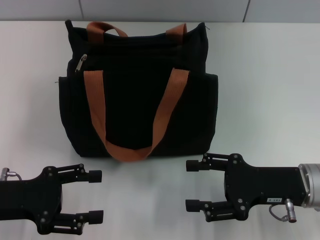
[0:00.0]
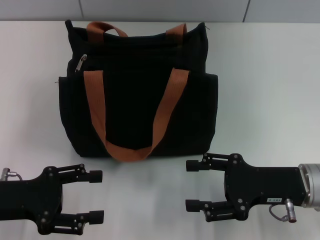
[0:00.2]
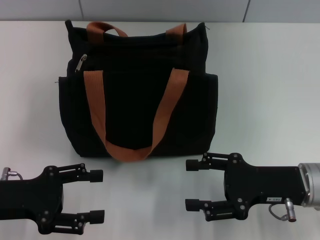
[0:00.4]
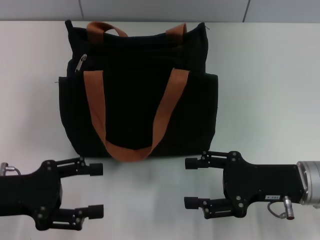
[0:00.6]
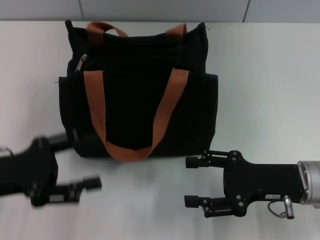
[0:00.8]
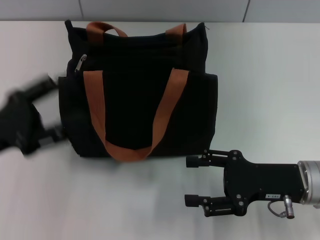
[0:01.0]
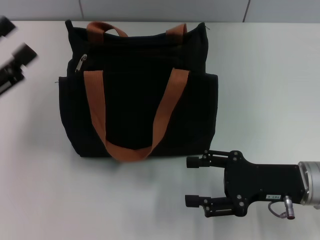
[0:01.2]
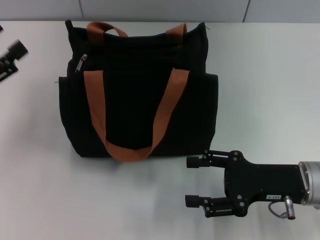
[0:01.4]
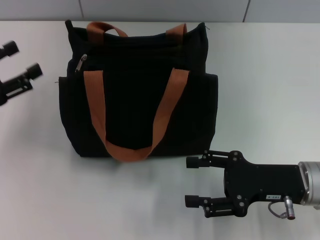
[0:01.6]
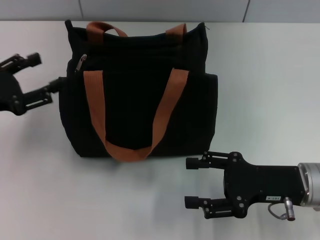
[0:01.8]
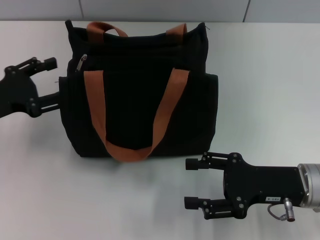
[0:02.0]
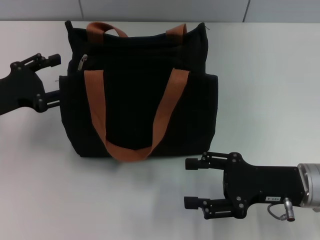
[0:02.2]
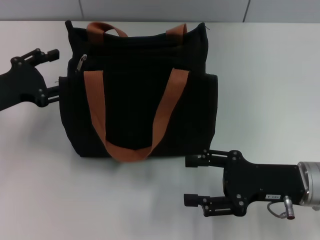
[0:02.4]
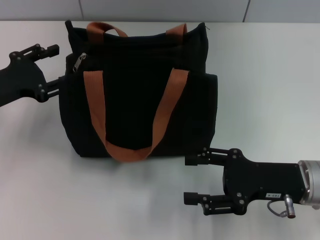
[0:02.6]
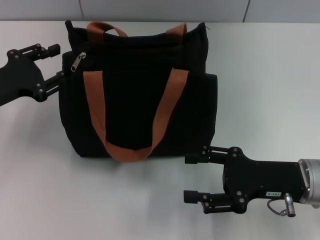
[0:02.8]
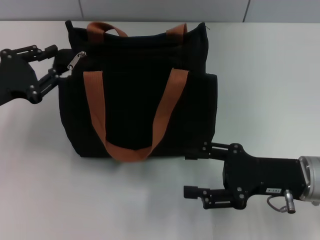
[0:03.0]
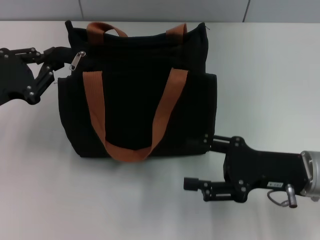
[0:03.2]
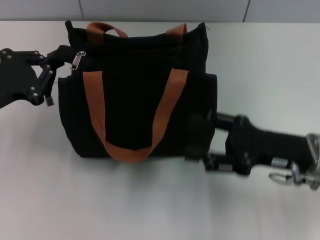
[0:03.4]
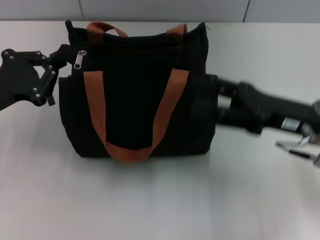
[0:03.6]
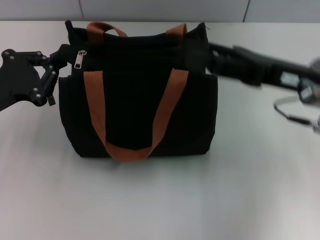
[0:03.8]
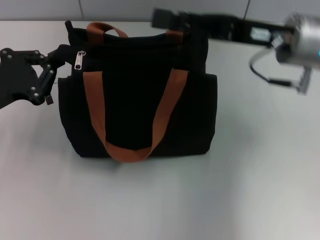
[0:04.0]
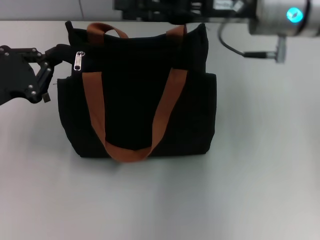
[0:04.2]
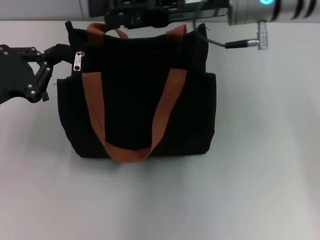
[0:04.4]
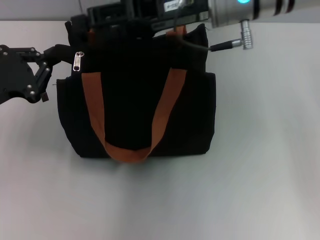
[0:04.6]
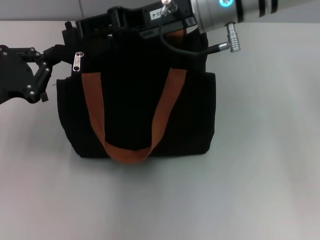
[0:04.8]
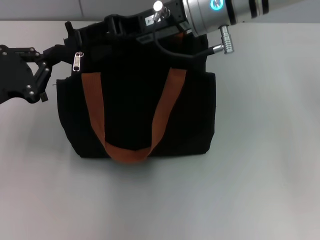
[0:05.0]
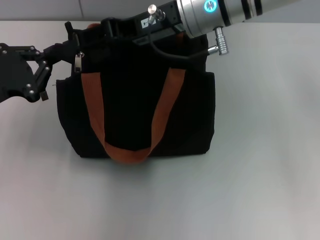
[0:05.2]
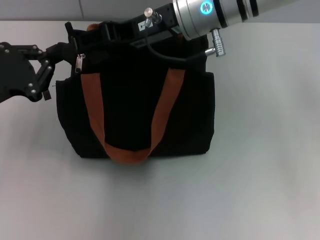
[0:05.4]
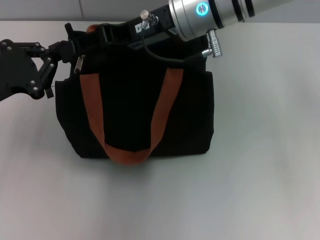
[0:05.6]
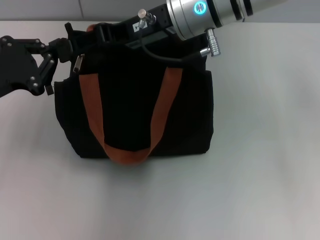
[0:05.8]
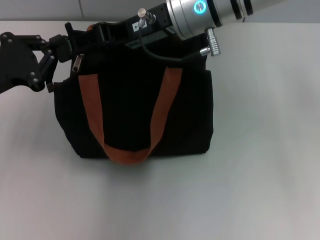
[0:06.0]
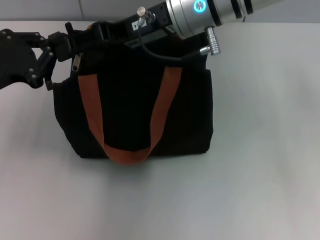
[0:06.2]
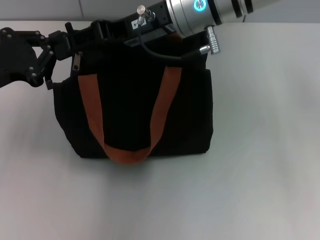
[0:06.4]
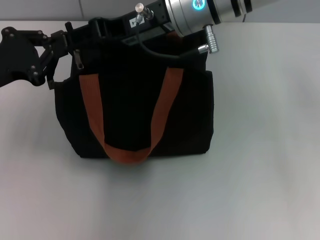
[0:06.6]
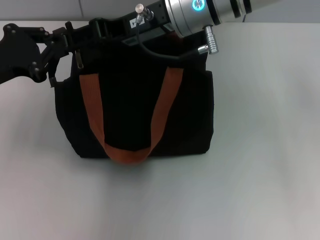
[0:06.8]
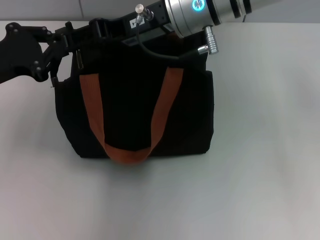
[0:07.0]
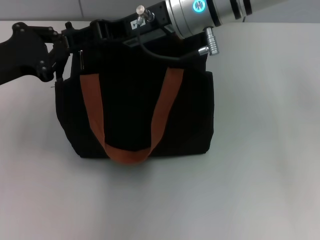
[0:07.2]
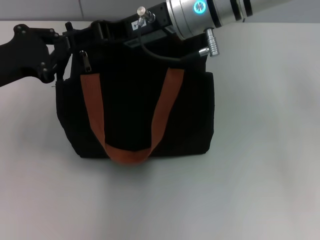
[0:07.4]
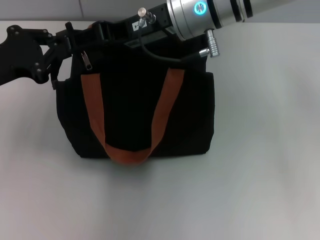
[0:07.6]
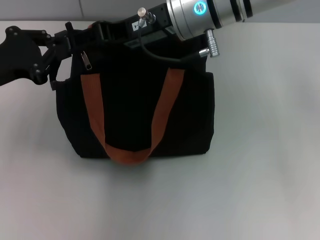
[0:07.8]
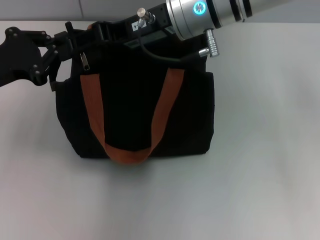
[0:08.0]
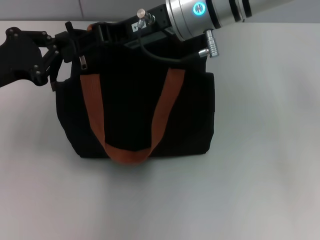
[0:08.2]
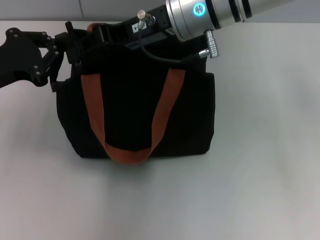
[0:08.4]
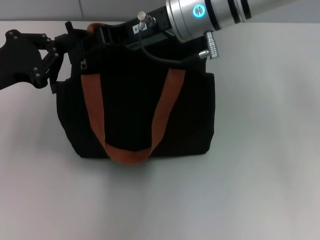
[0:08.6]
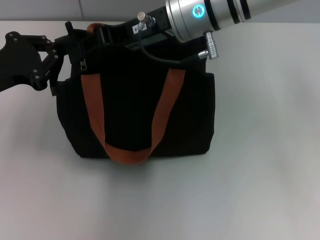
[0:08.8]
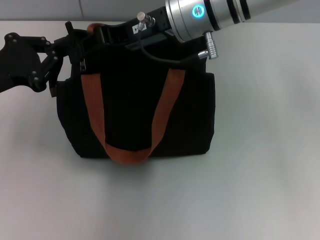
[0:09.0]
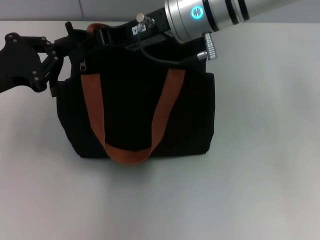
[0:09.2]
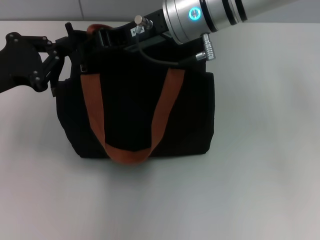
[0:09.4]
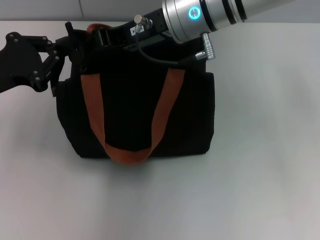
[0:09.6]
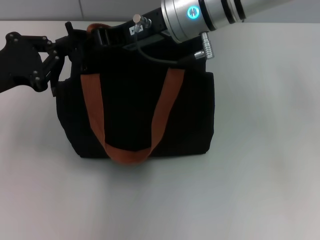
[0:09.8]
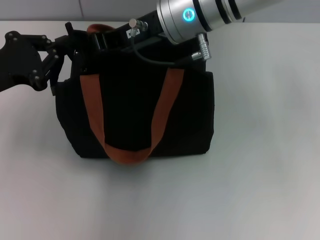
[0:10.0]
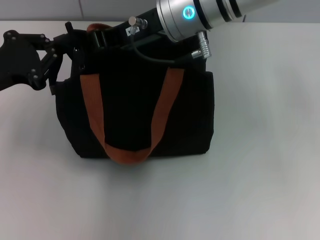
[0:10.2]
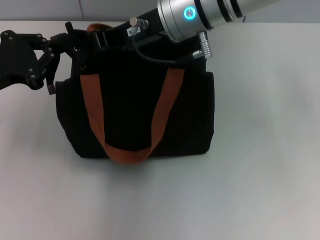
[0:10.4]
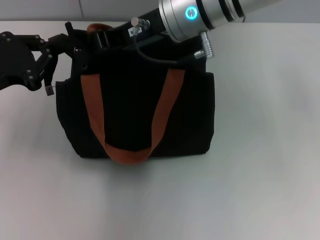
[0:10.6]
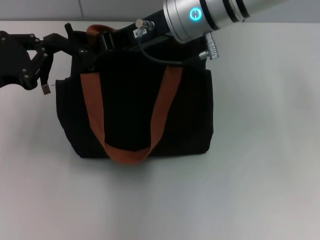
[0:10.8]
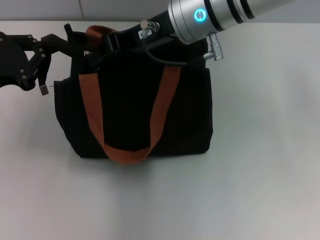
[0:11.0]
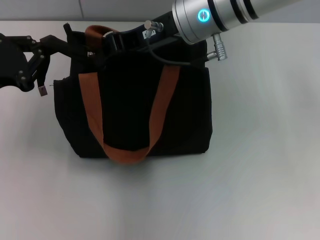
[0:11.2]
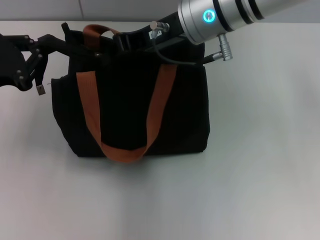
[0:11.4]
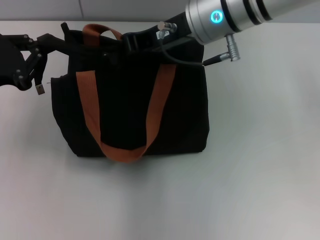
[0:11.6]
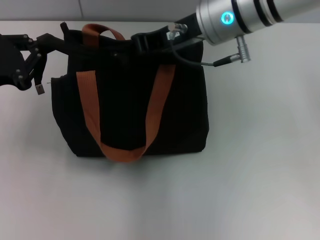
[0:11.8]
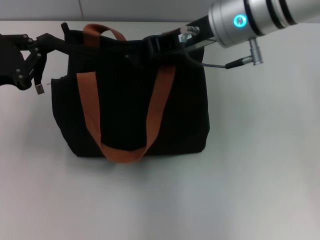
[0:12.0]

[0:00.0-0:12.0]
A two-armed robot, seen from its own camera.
0:00.0 to 0:01.6: The left gripper travels to the left and forward by some 10 cm.
0:03.0 to 0:04.4: The right gripper goes approximately 25 cm upward, forward and to the left. Meanwhile the left gripper closes up.
0:04.4 to 0:06.0: The right gripper is displaced to the left by some 5 cm.
0:06.0 to 0:07.6: The grippers stay close to where they were, moving slightly.
0:07.6 to 0:09.0: The right gripper closes its fingers.
0:09.0 to 0:10.4: The grippers stay close to where they were, moving slightly.
0:10.4 to 0:12.0: The right gripper is displaced to the right by roughly 5 cm.

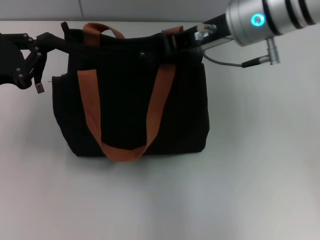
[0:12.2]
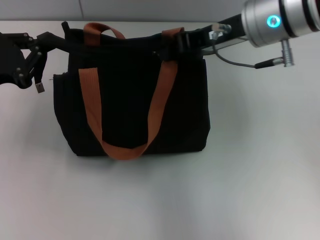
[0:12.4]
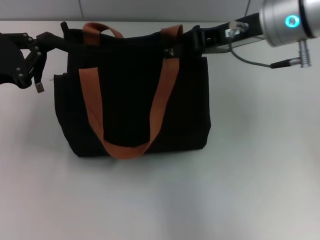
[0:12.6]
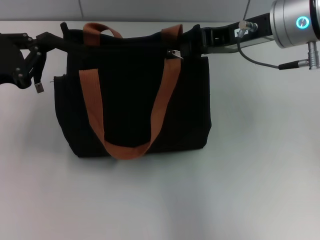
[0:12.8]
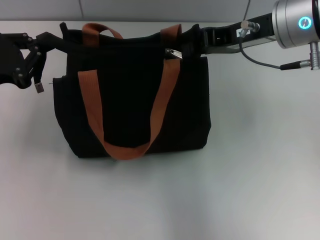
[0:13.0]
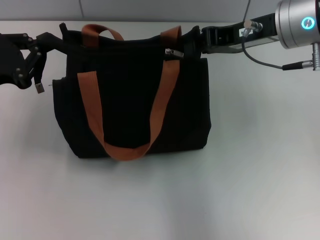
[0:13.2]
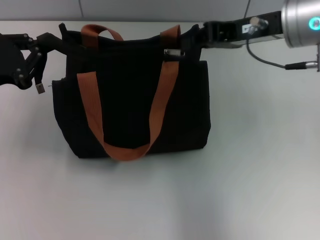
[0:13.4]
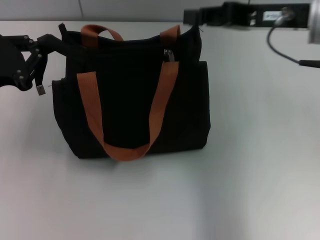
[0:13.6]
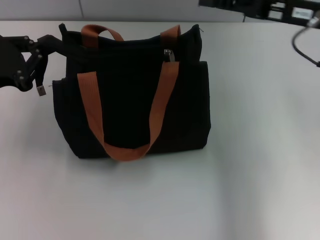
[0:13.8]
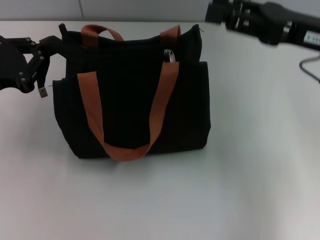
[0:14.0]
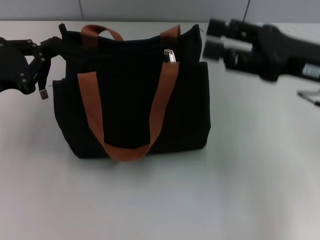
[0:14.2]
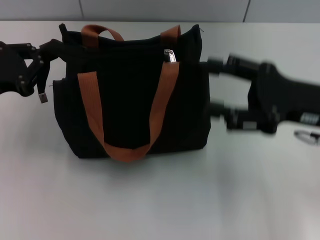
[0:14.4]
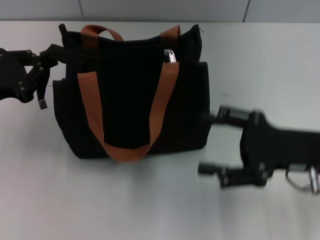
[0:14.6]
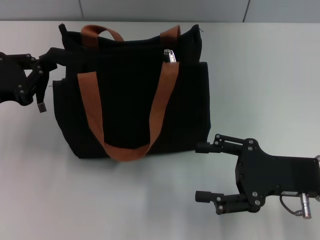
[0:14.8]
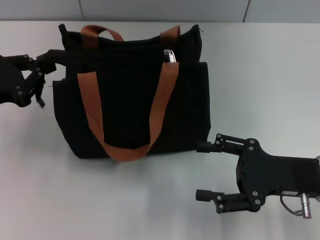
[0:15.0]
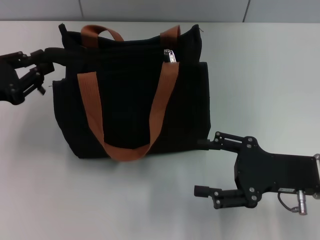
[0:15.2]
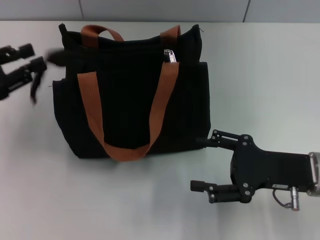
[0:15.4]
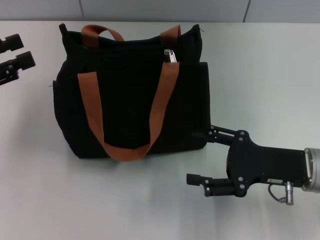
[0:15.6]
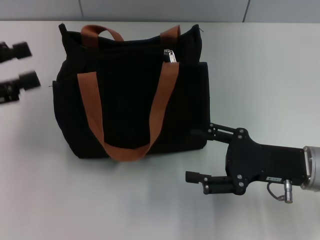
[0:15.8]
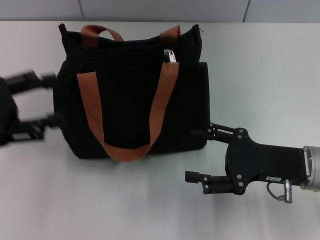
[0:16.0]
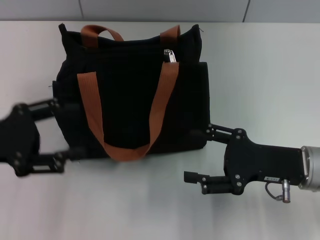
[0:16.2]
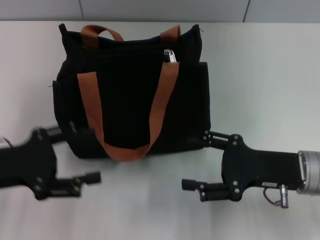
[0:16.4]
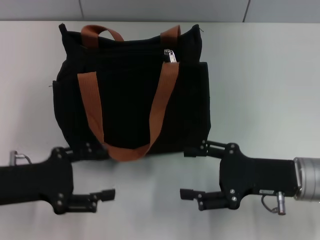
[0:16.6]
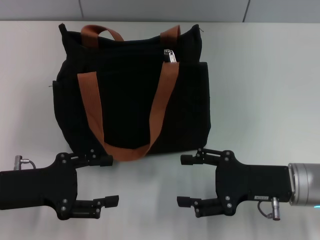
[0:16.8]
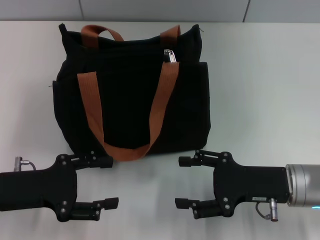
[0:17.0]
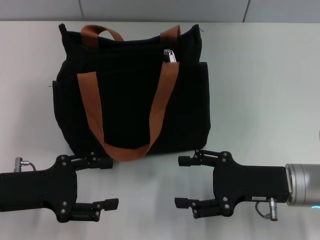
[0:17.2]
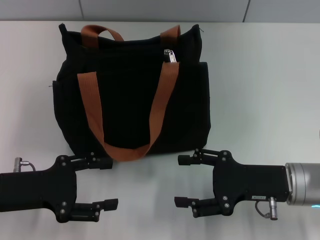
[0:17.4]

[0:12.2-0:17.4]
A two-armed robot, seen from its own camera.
Step, 0:13.6 to 0:15.4: Grab the zipper with your left hand.
0:12.2 to 0:14.0: The right gripper goes some 15 cm to the right and backward, and opens.
0:14.0 to 0:15.6: The left gripper moves approximately 5 cm, and opens its fingers. The right gripper moves downward and backward, roughly 15 cm, and opens.
0:15.6 to 0:17.4: The left gripper goes some 15 cm downward, to the right and backward, and opens.

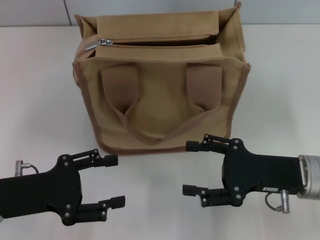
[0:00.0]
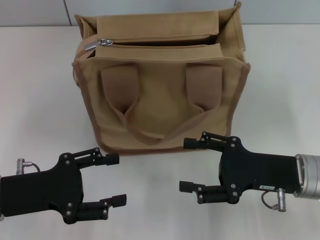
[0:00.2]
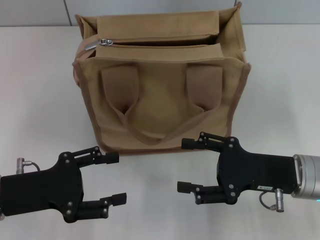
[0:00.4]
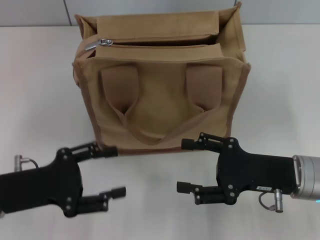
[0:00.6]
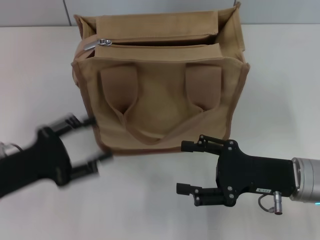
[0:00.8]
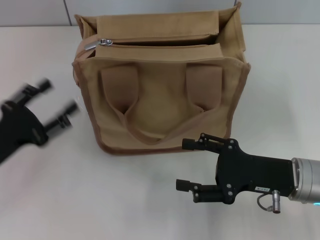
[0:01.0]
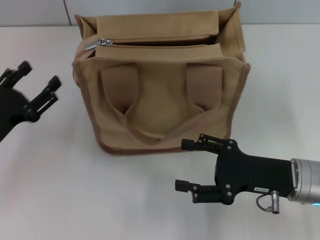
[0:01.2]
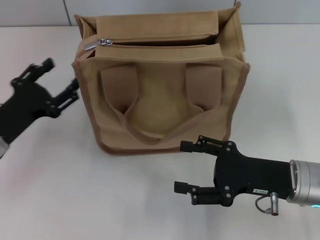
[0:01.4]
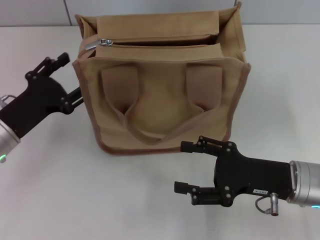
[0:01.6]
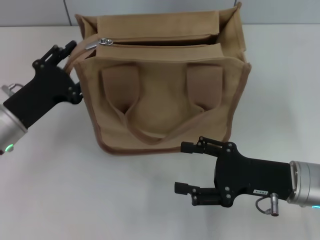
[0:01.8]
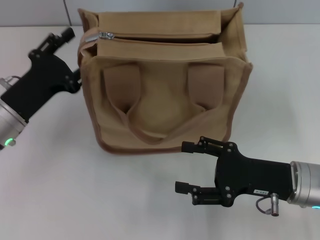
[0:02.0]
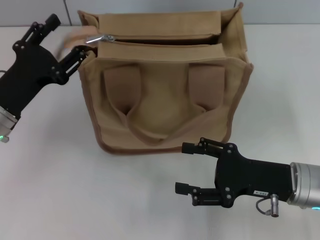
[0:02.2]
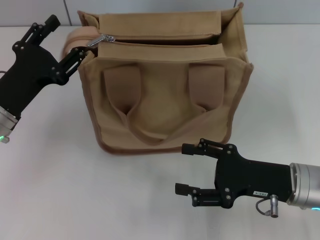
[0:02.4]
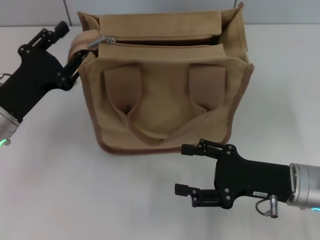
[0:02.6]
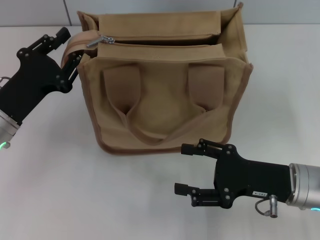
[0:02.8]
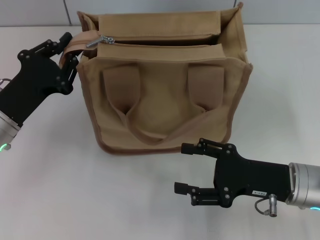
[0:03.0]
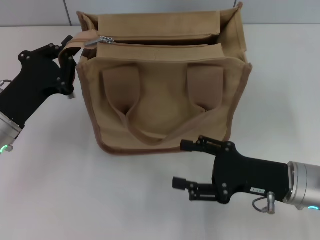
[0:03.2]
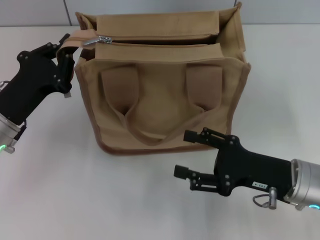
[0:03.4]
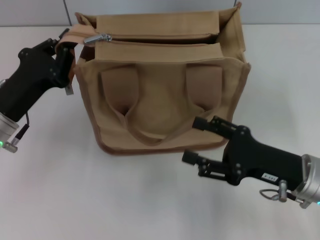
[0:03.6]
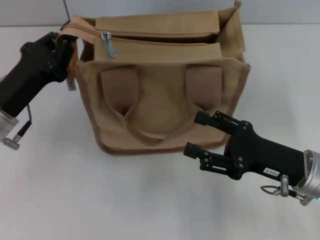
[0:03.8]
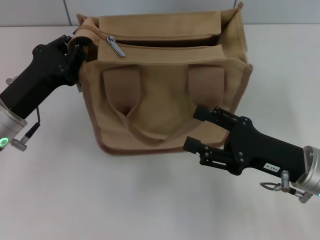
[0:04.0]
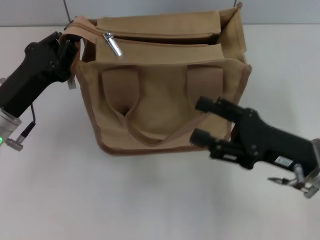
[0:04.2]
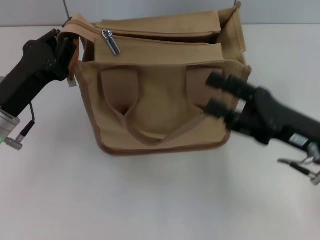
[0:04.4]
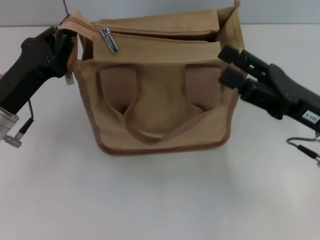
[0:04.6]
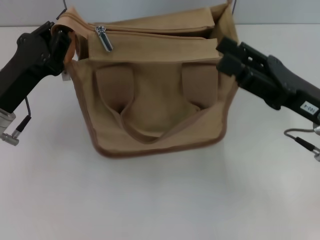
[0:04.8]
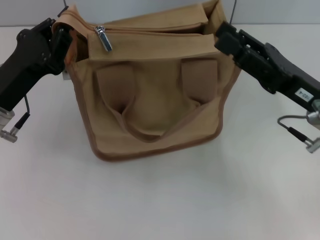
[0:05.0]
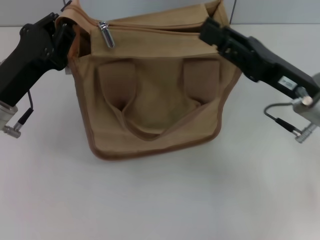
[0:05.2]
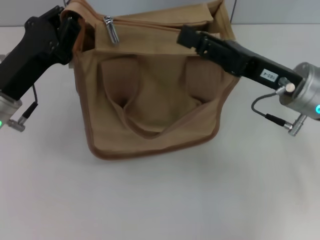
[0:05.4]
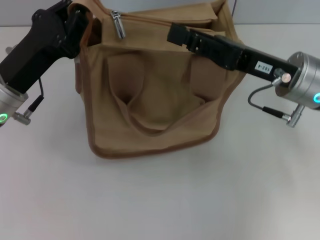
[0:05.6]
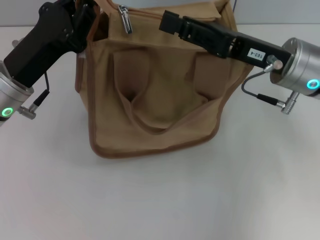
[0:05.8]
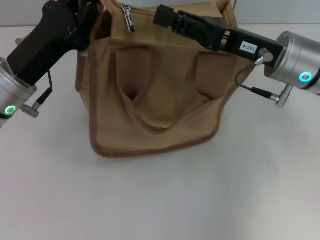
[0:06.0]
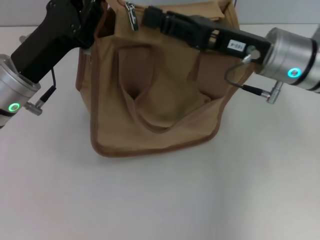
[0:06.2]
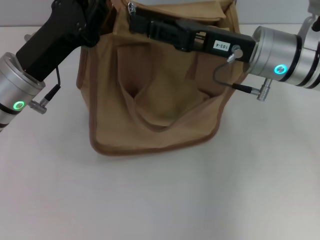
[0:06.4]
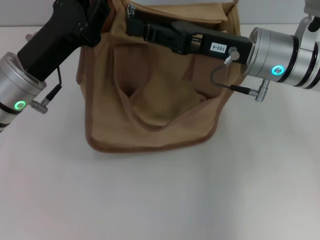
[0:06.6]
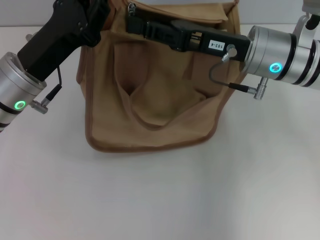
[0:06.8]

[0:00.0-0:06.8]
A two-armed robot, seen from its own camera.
0:00.0 to 0:01.4: The left gripper goes approximately 5 cm forward.
0:01.4 to 0:02.8: The grippers make only small movements.
0:02.8 to 0:04.0: The left gripper closes its fingers.
0:04.0 to 0:05.4: The right gripper shifts some 10 cm forward and upward, and closes up.
0:05.4 to 0:06.8: The right gripper moves roughly 5 cm.
